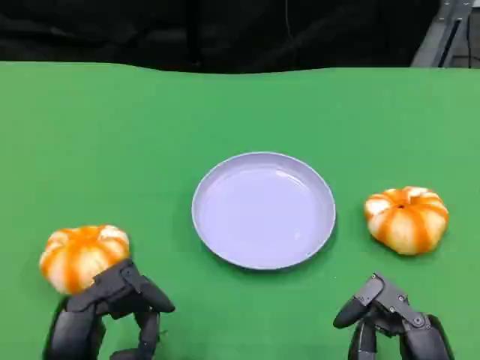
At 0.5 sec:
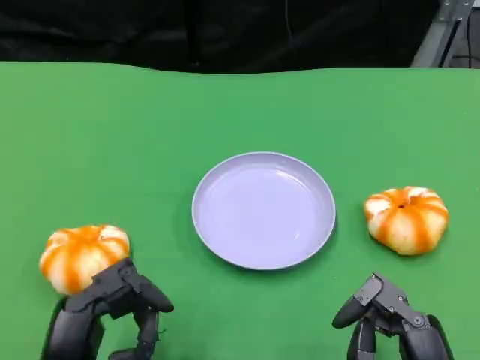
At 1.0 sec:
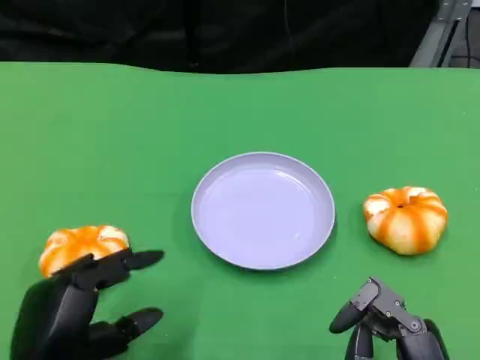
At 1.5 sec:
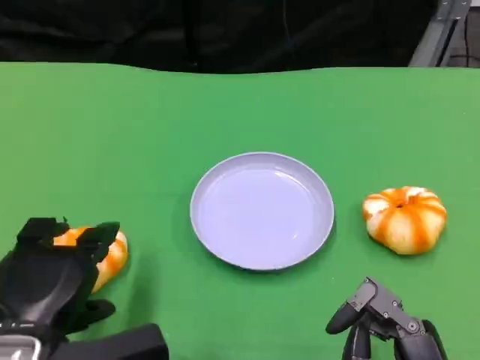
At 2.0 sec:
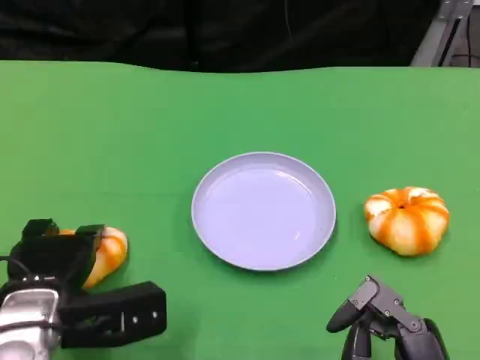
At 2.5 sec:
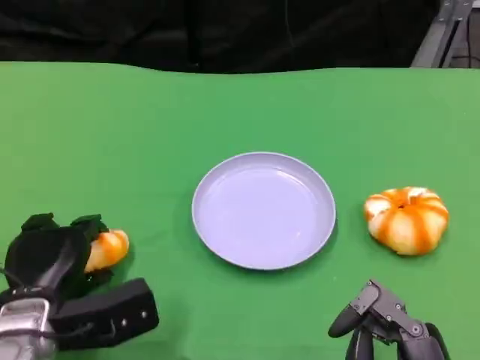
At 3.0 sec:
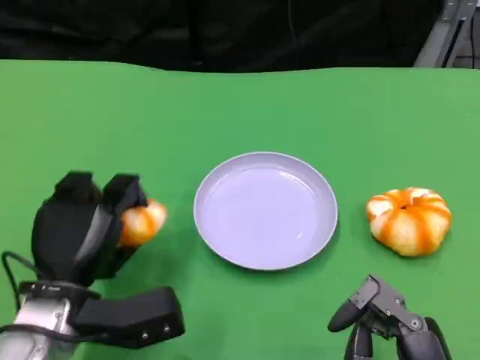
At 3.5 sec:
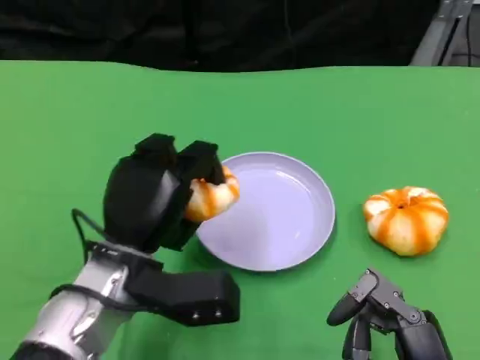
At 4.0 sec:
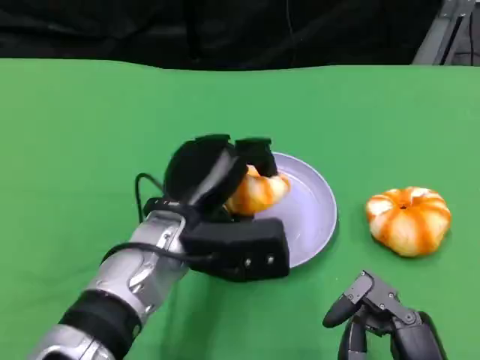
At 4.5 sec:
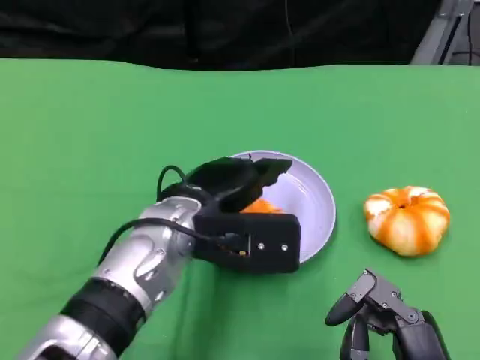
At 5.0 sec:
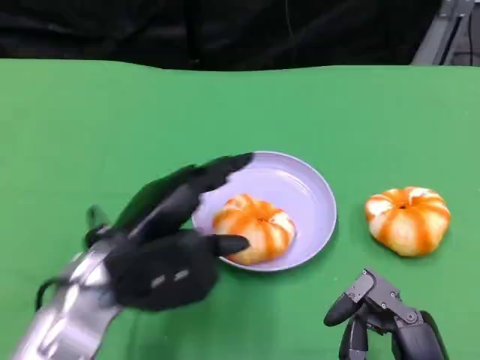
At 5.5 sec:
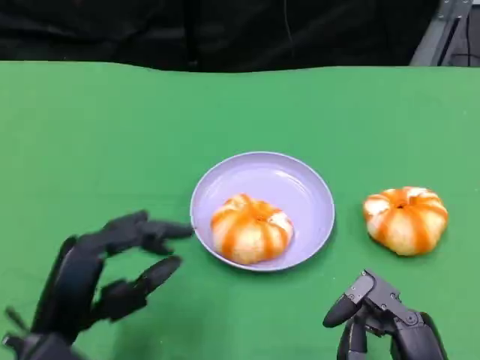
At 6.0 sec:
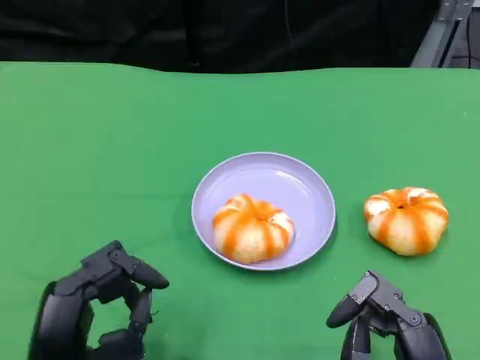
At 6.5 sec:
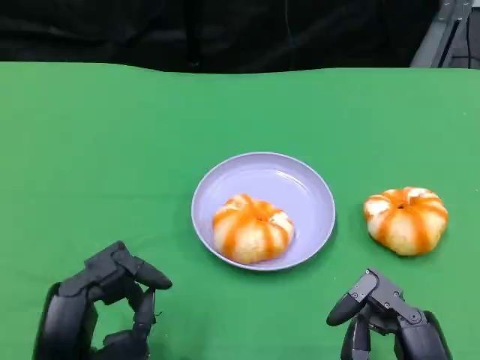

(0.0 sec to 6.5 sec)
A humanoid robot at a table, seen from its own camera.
Task of the whole recording: Grasp the bread from the table and place it into the plate.
0.0 sec - 2.0 sec: The left hand travels forward by roughly 10 cm.
2.0 sec - 4.5 sec: The left hand heads to the right, upward and forward, covering about 15 cm.
4.5 sec - 6.5 sec: The left hand goes roughly 20 cm backward, to the left and downward.

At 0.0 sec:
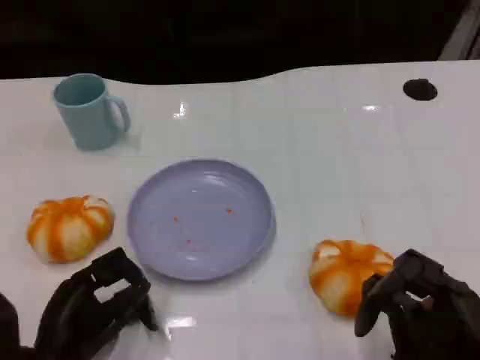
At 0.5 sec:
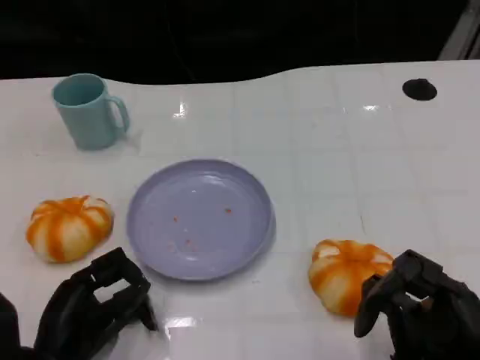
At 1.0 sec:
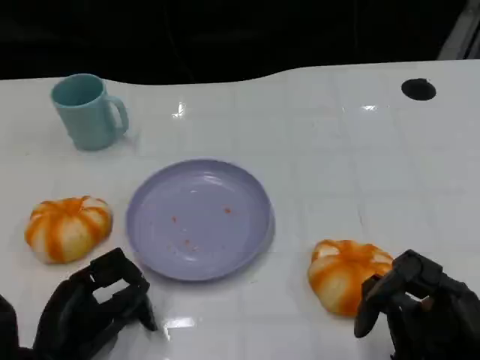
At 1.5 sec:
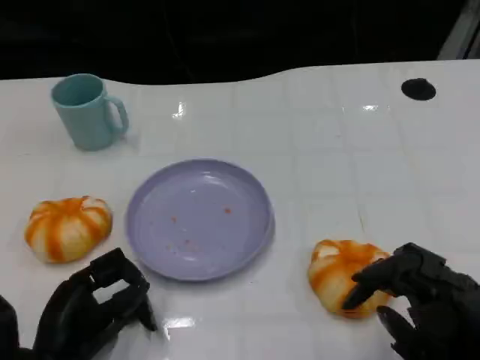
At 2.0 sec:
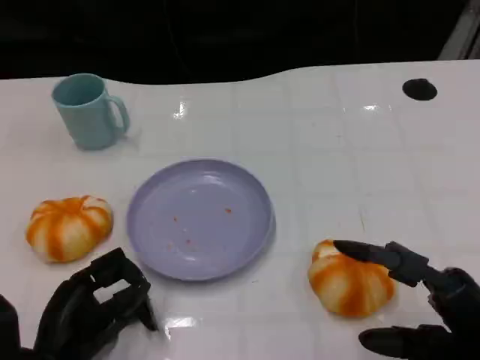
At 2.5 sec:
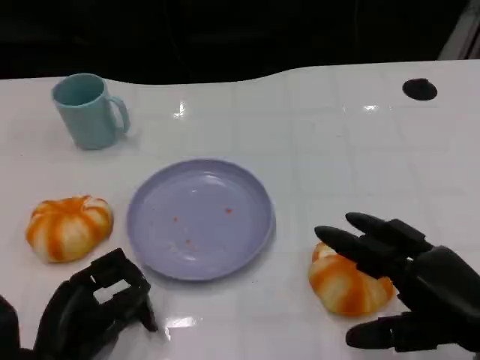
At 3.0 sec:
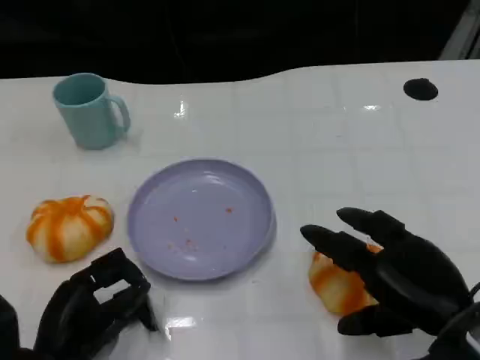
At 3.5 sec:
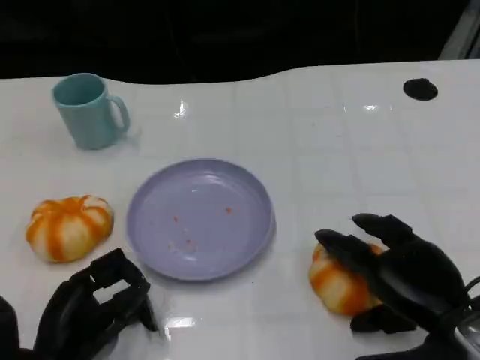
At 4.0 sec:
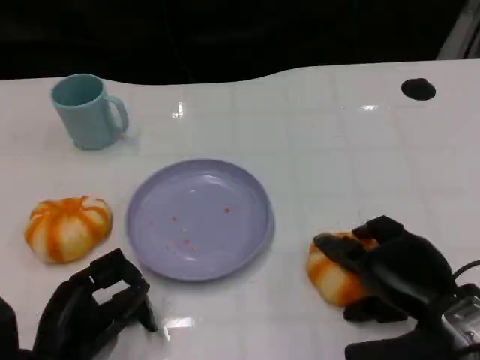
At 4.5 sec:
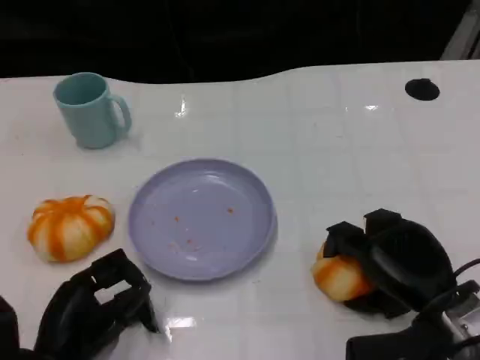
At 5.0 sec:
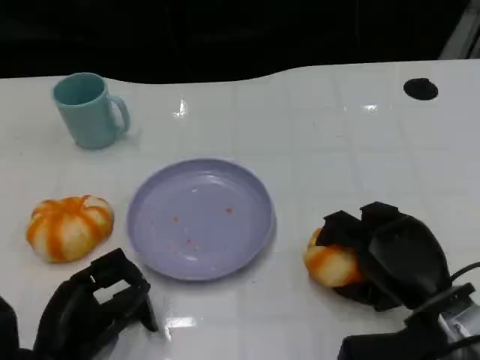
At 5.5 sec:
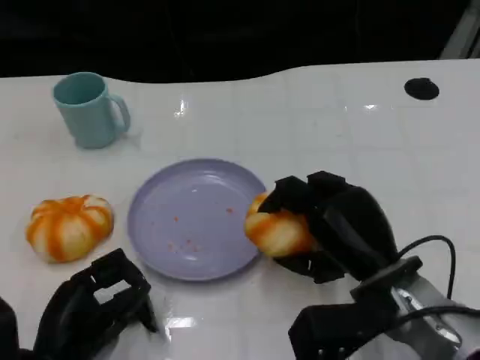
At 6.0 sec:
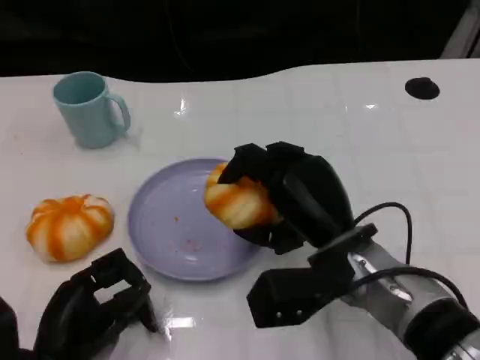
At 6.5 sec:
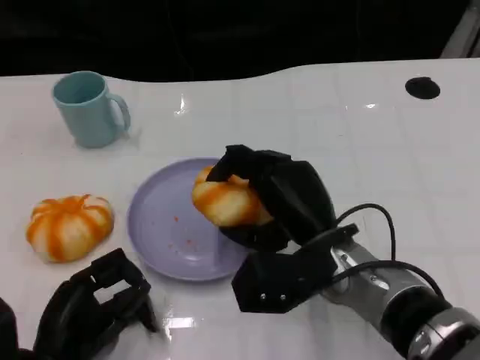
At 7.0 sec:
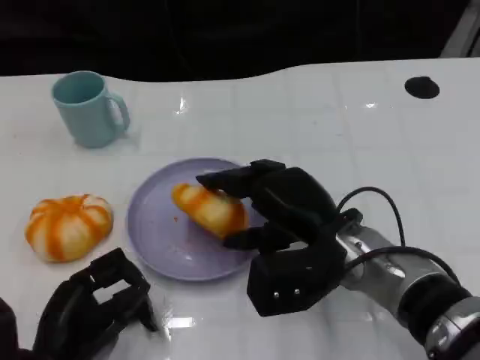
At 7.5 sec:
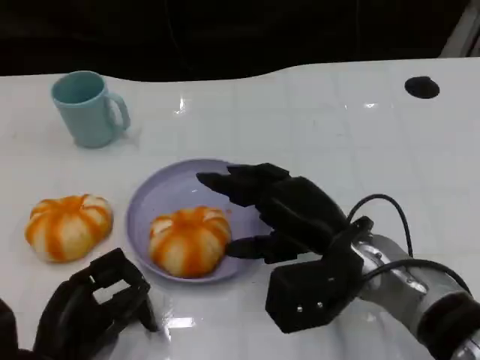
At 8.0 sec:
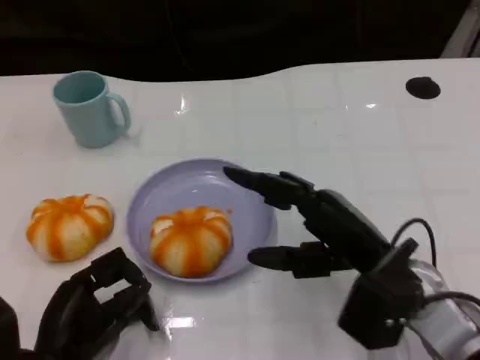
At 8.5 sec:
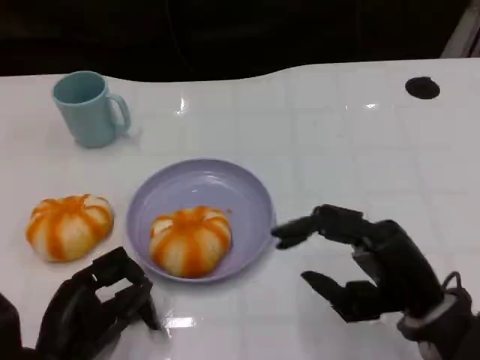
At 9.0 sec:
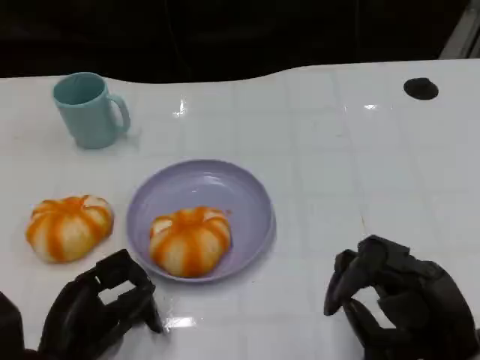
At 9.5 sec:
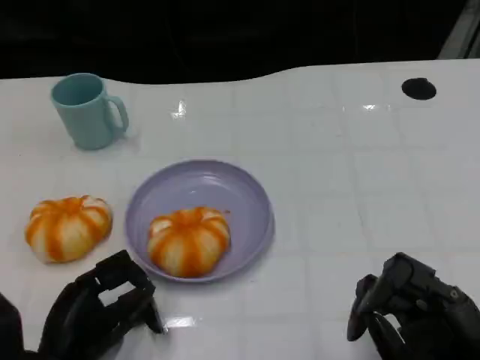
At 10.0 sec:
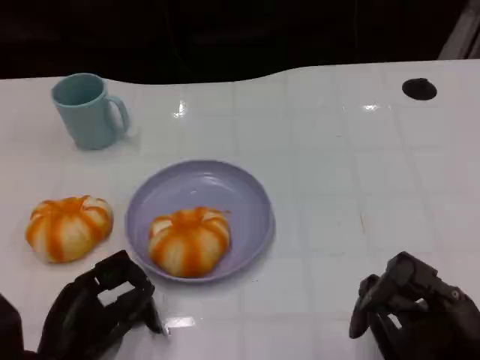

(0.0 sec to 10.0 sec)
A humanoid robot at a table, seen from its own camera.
Task of the whole recording: Grasp the bread from the table and place it into the plate.
2.0 sec - 4.0 sec: The right hand shifts roughly 5 cm forward.
4.0 sec - 6.0 sec: The right hand heads to the left, covering some 10 cm.
6.0 sec - 8.0 sec: The right hand travels to the right by approximately 5 cm.
8.0 sec - 10.0 sec: The right hand is displaced backward, to the right and downward by roughly 15 cm.

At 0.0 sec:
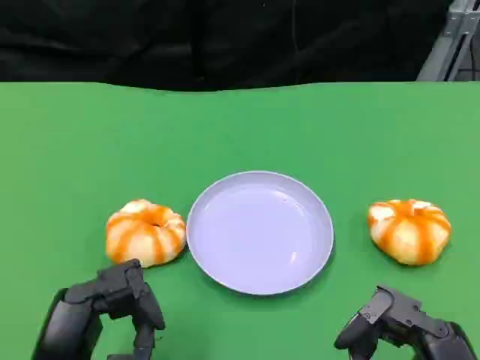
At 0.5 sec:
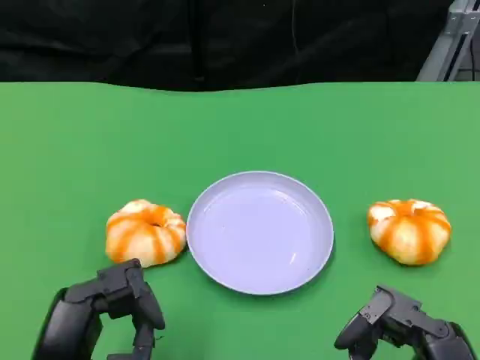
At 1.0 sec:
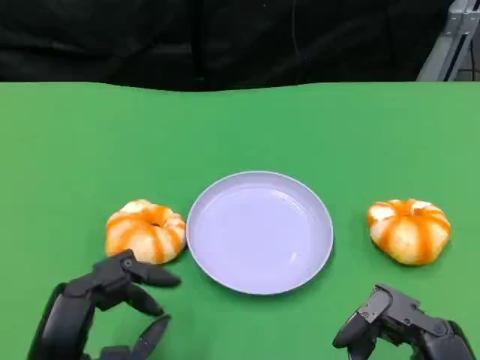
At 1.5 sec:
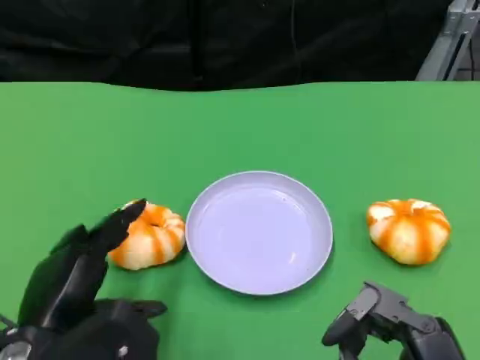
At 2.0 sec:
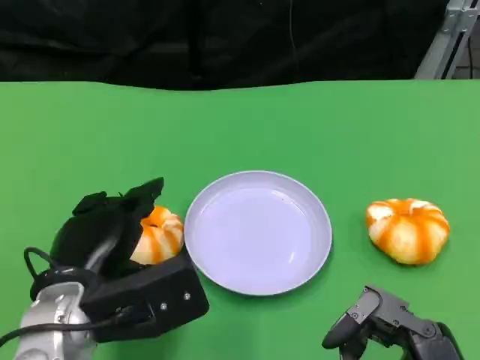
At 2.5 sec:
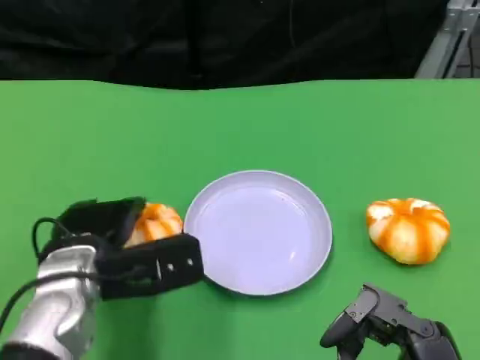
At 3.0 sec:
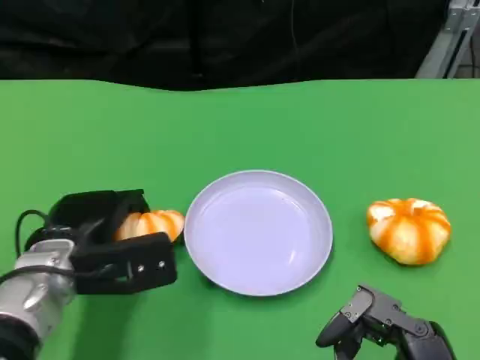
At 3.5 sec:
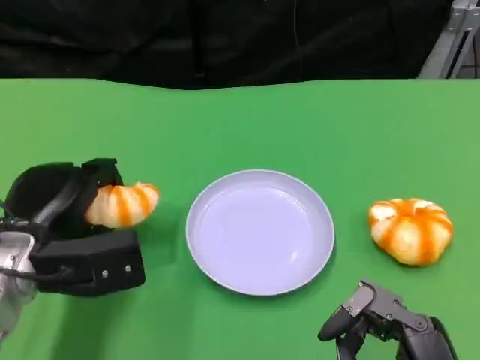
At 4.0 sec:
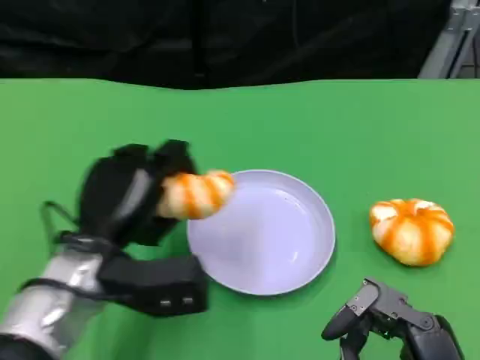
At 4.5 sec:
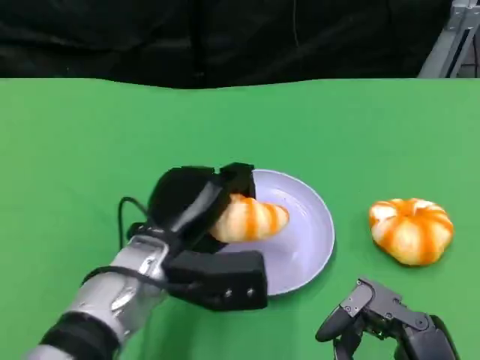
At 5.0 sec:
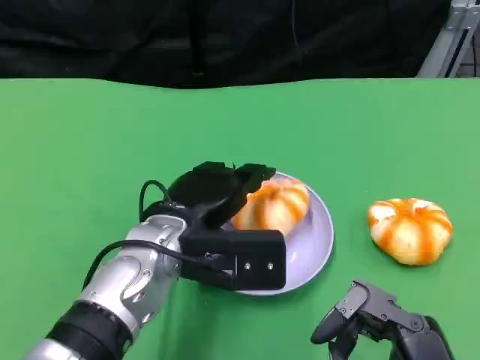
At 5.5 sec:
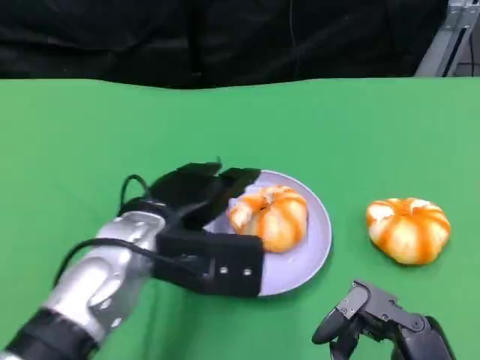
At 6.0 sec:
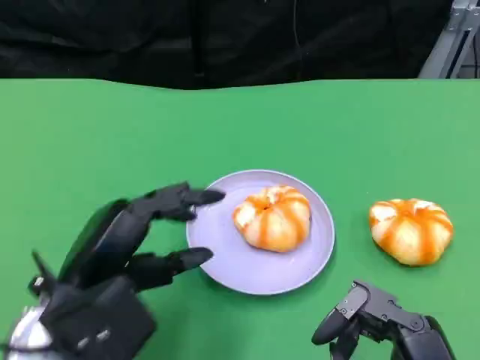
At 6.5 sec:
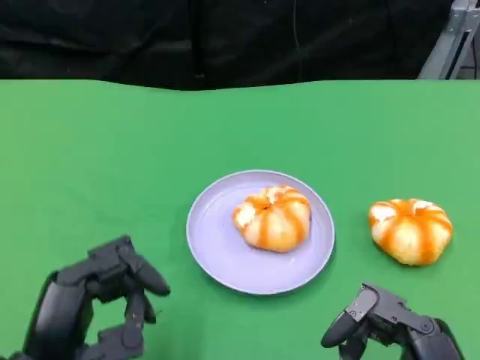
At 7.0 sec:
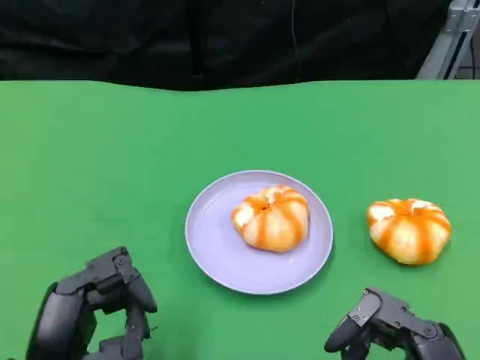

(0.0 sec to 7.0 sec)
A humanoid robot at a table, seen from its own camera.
Task of the whole recording: Grasp the bread from the table and place it into the plate.
0.0 sec - 2.0 sec: The left hand travels forward by about 10 cm.
2.0 sec - 3.5 sec: The left hand shifts some 5 cm forward and to the left.
3.5 sec - 5.0 sec: The left hand goes approximately 15 cm to the right.
5.0 sec - 7.0 sec: The left hand shifts roughly 20 cm backward and to the left.

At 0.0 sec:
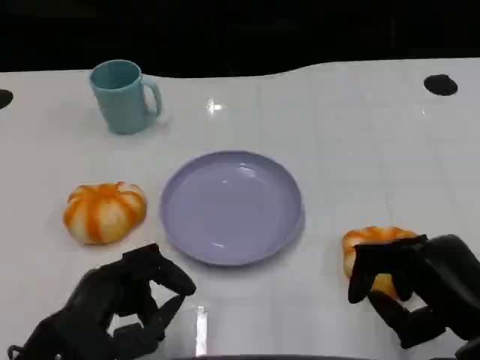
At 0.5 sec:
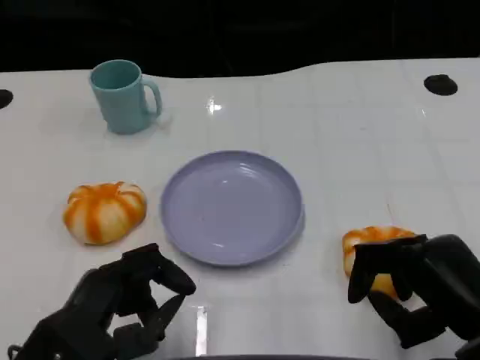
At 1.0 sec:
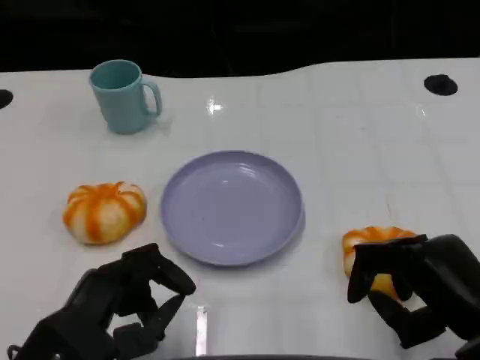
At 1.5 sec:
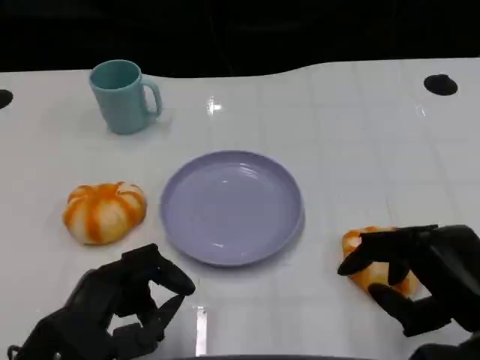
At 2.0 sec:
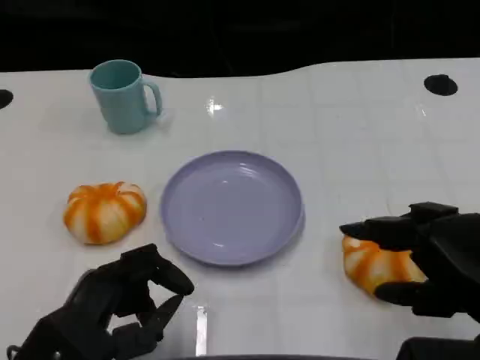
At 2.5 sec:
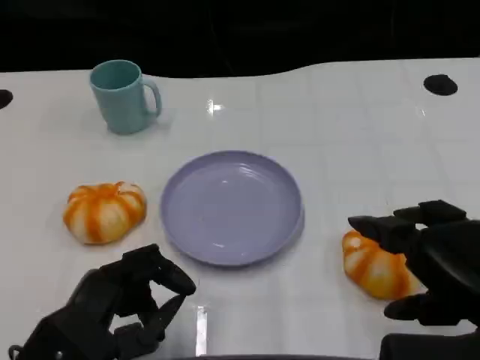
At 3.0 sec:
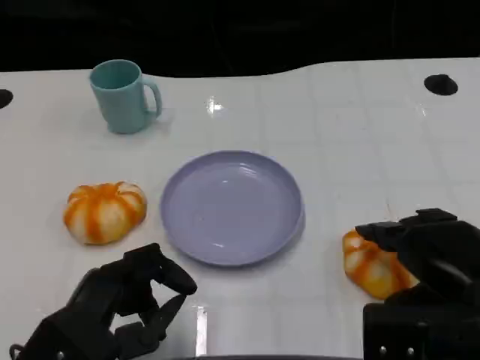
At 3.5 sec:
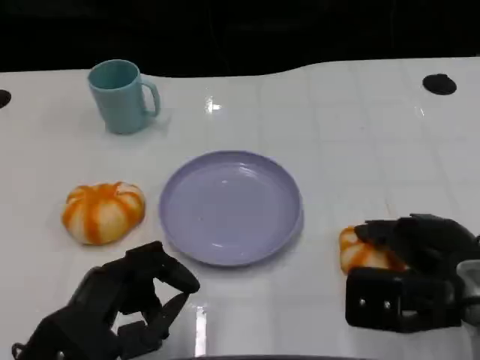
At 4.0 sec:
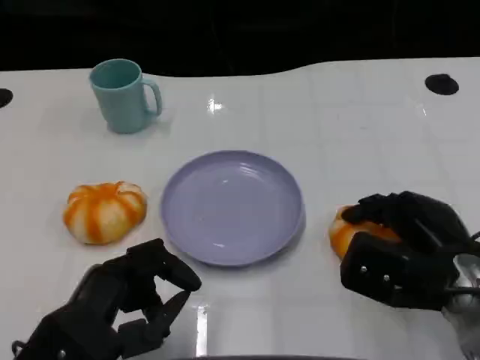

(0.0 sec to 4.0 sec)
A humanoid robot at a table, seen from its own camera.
Task of the whole recording: Grasp the bread from the table and place it into the plate.
0.0 sec - 2.0 sec: The right hand goes about 5 cm upward.
2.0 sec - 4.0 sec: The right hand heads forward and downward, covering about 10 cm.
